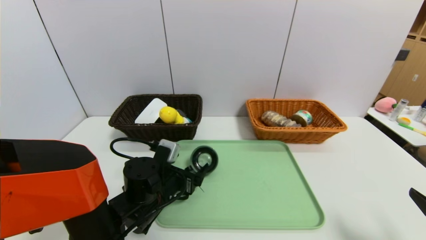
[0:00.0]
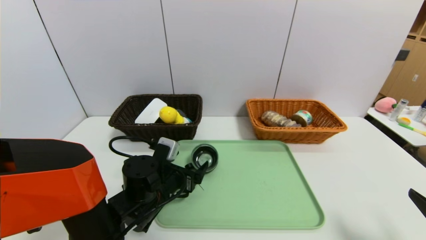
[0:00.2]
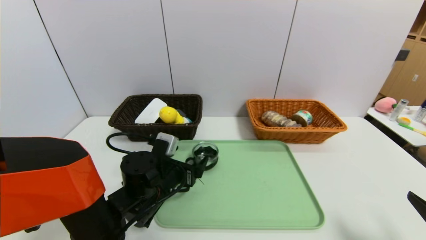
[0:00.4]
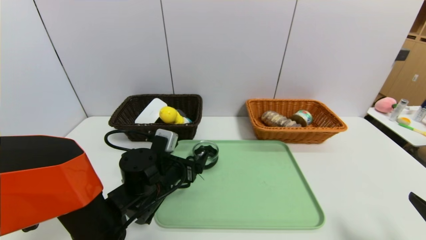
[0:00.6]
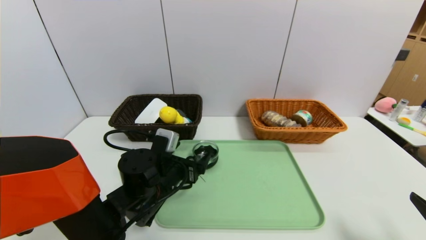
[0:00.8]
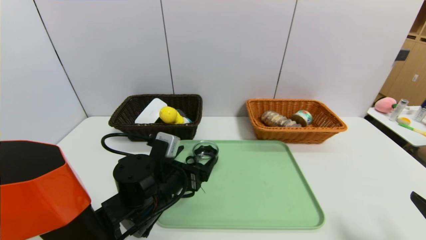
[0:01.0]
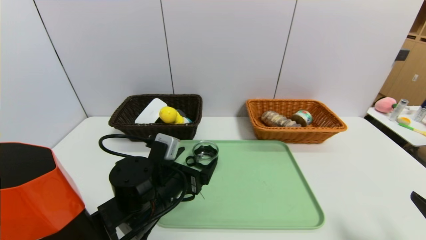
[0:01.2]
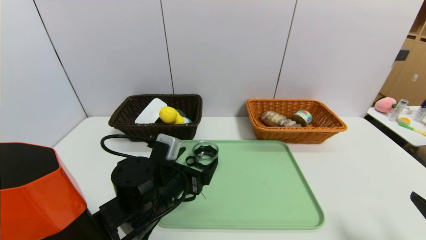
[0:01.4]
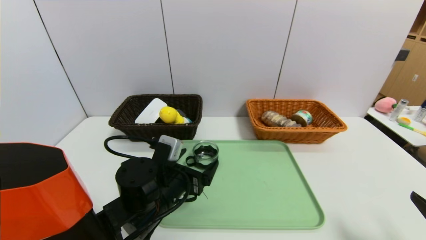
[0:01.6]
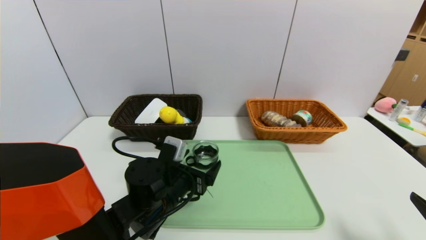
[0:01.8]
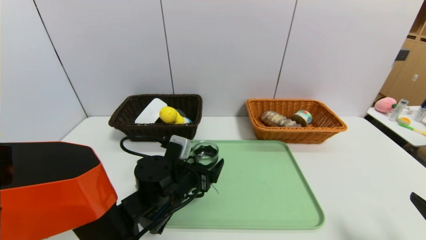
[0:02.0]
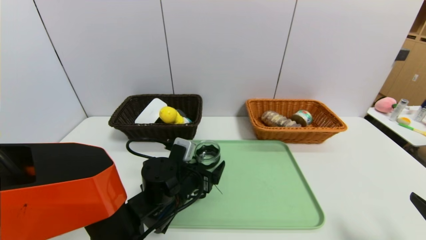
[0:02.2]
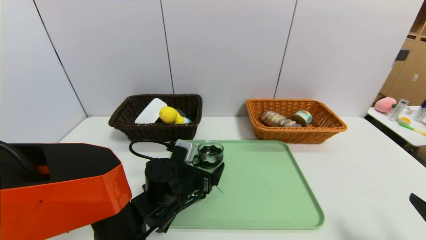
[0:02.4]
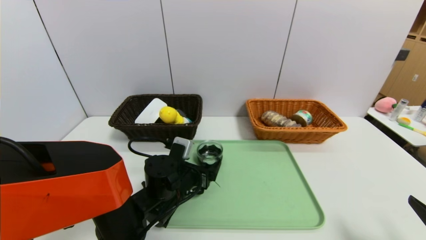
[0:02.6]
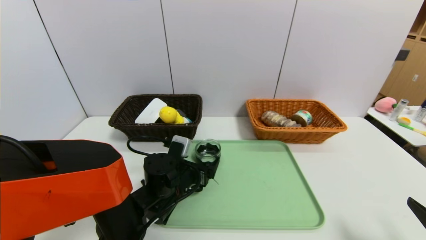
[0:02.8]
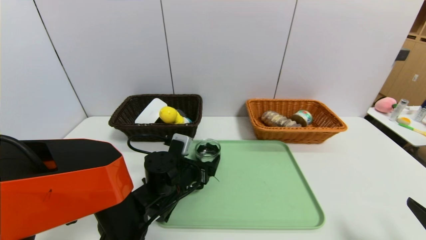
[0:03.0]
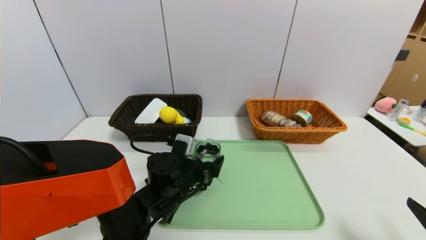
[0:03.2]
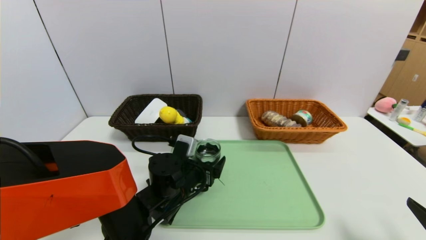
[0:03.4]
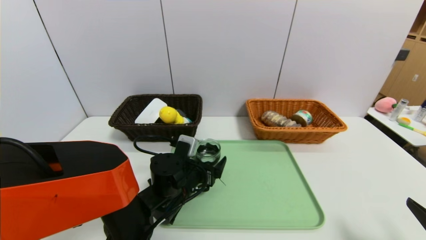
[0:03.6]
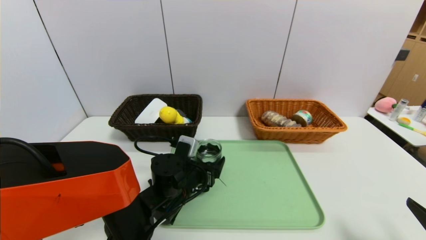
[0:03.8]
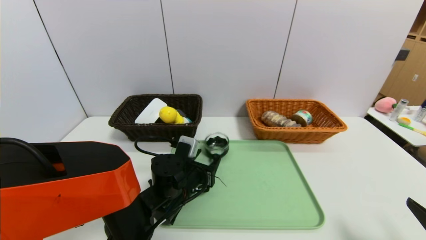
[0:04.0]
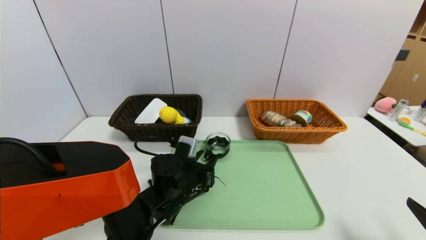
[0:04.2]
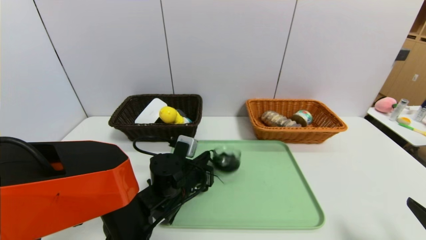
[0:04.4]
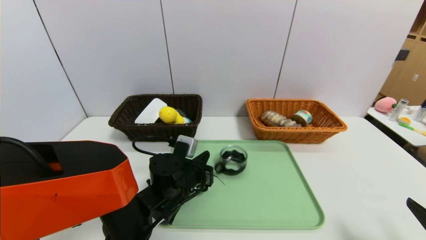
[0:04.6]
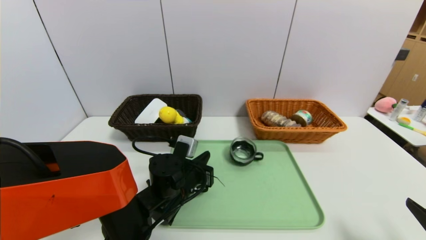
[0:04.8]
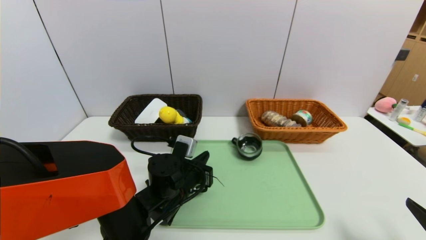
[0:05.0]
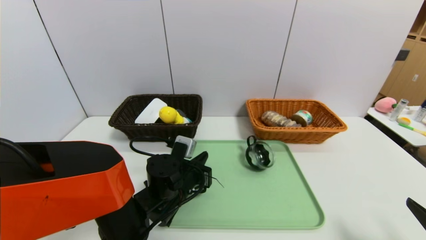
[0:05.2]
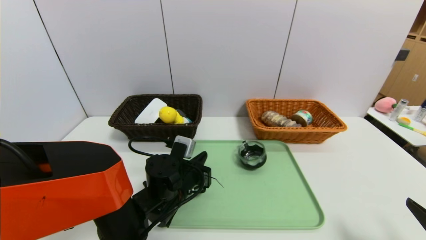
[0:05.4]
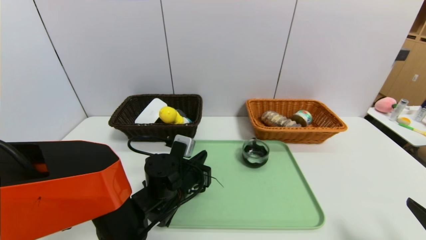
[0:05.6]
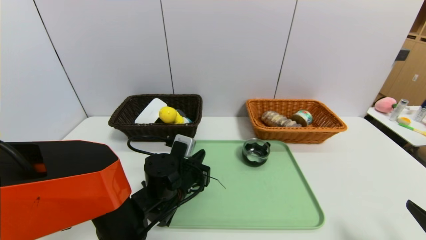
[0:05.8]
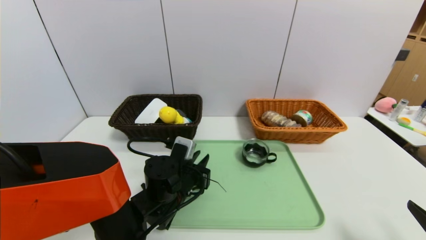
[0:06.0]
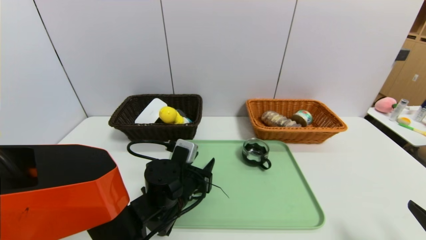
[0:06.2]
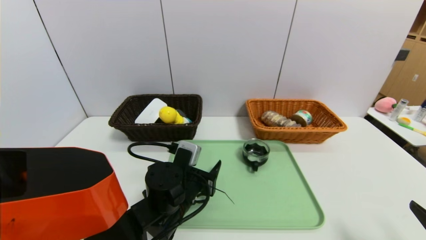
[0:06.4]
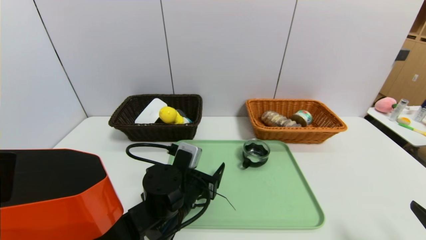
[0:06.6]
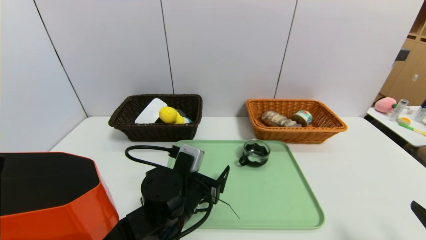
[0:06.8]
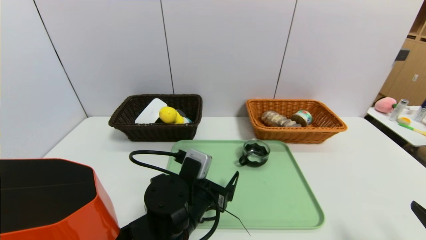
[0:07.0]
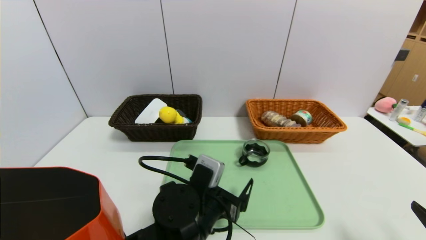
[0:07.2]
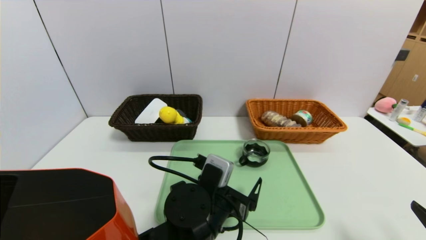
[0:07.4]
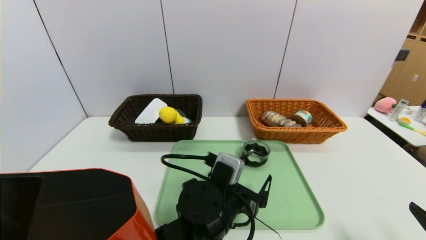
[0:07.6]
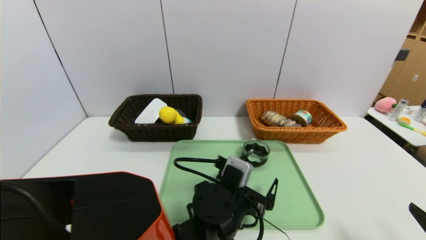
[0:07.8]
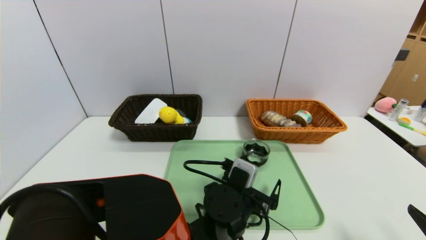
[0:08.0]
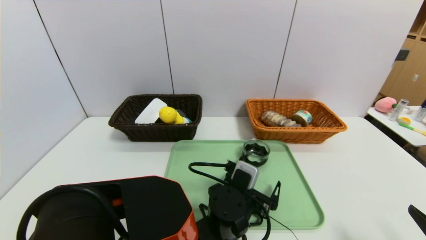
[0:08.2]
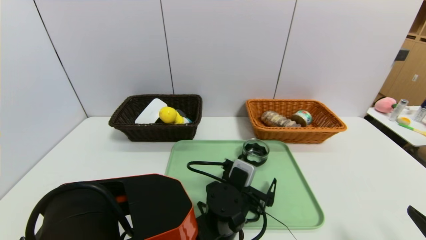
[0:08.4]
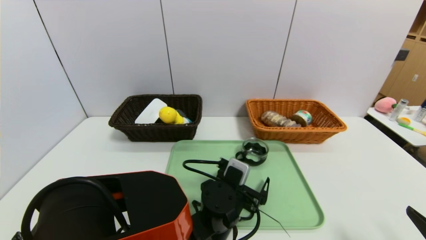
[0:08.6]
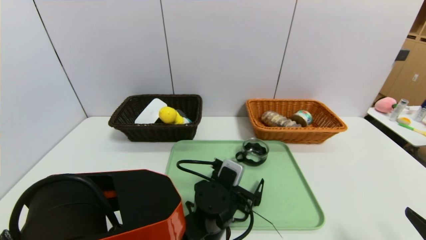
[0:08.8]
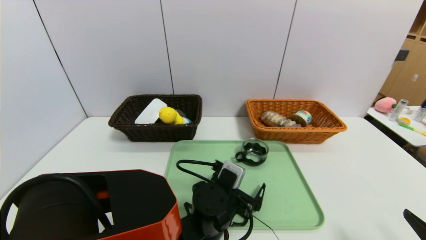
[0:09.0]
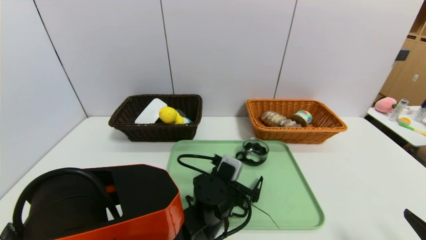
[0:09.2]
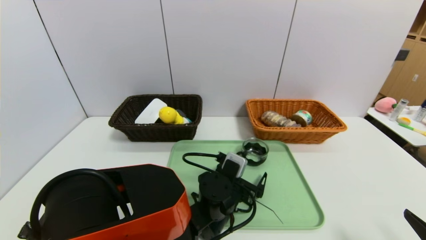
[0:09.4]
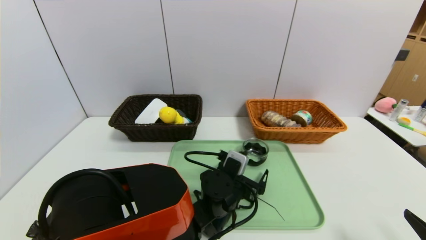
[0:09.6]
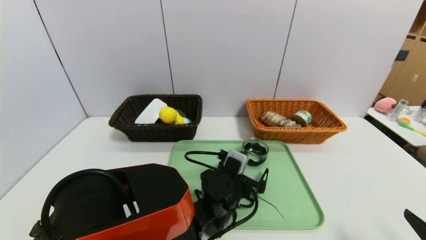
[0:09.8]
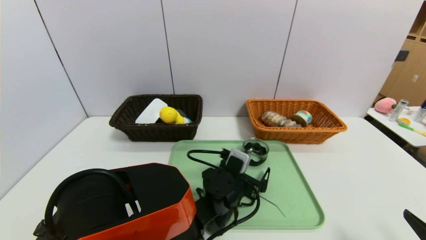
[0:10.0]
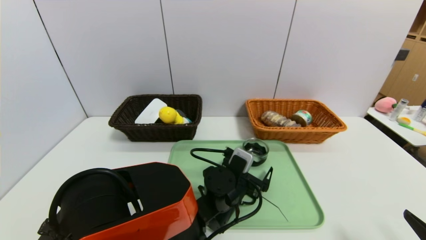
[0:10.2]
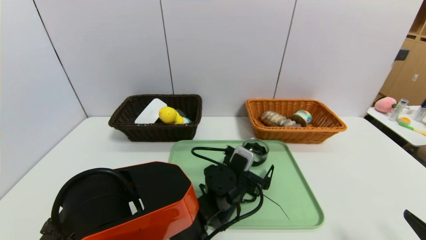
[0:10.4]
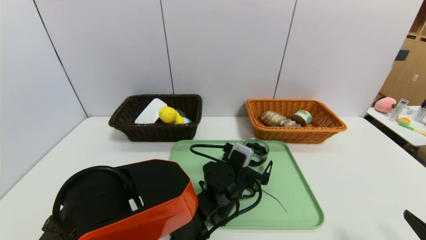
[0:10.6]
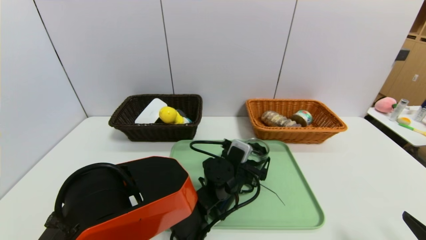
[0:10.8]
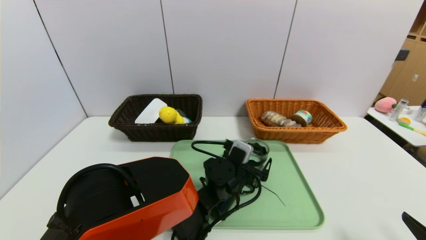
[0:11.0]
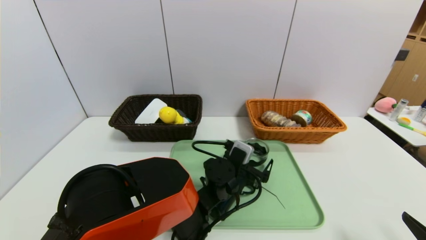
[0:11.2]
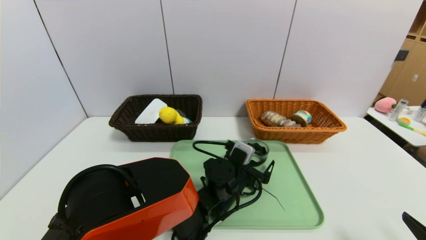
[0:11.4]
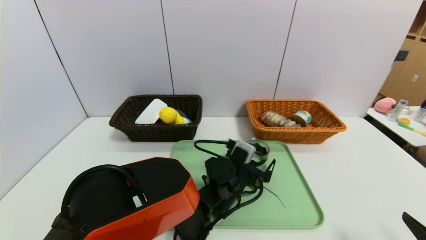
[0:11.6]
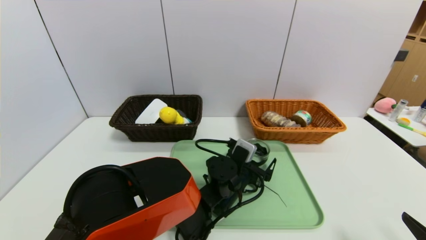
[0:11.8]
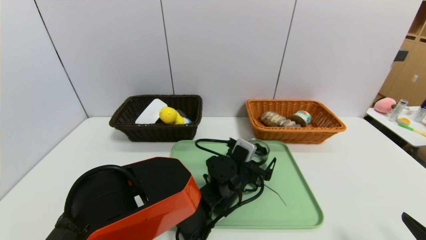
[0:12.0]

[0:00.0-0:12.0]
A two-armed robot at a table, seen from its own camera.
Task of the whole recording: place the food in the right basket with the right gripper, and place the non food items in the left basket with the left gripper.
0:00.0 to 0:01.6: The grippers stay close to where they were, moving slightly.
0:01.6 to 0:03.0: The left gripper changes place by approximately 5 cm.
0:03.0 to 0:04.4: The left gripper closes up.
0:04.4 to 0:06.0: The grippers stay close to where they were, moving slightly.
0:06.0 to 0:07.6: The left gripper travels to the right and backward by some 10 cm, and opens up.
0:07.6 to 0:09.0: The left gripper moves downward, roughly 5 cm.
0:09.0 to 0:10.4: The left gripper ends up about 5 cm from where it was.
0:10.4 to 0:12.0: The grippers stay close to where they were, moving slightly.

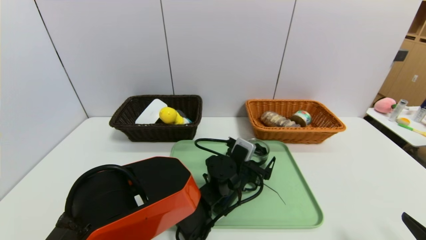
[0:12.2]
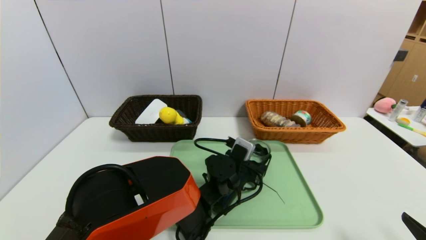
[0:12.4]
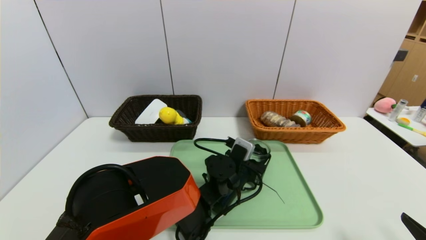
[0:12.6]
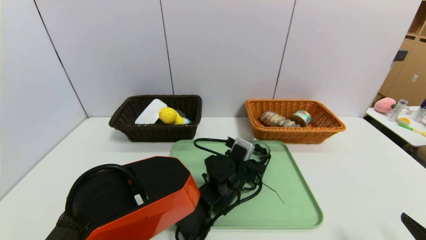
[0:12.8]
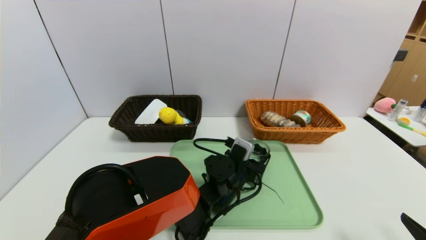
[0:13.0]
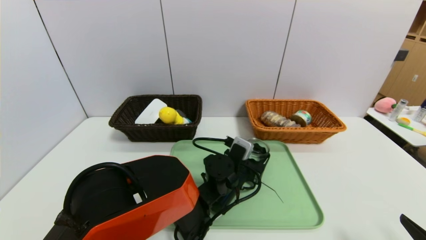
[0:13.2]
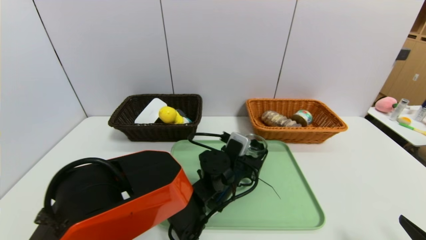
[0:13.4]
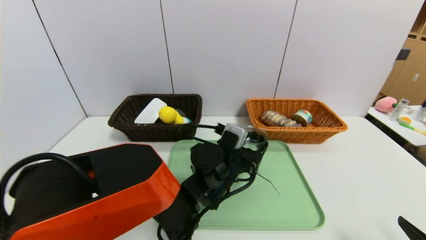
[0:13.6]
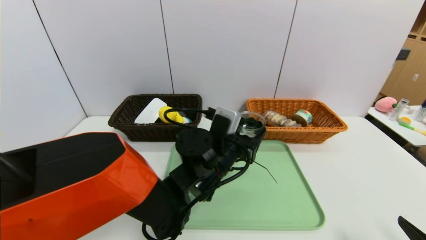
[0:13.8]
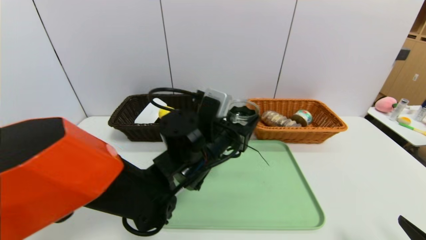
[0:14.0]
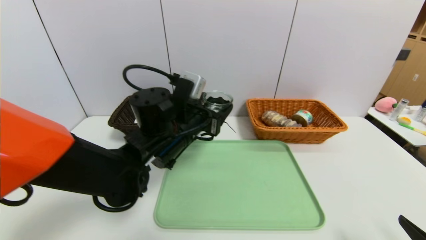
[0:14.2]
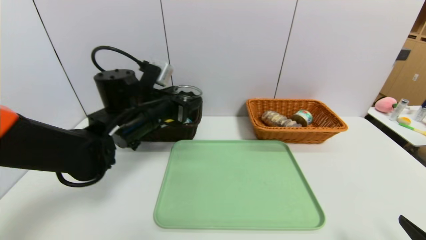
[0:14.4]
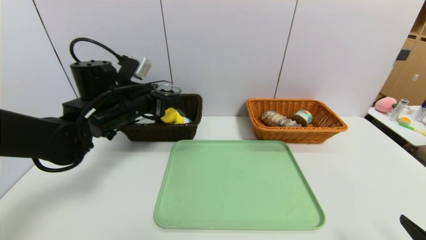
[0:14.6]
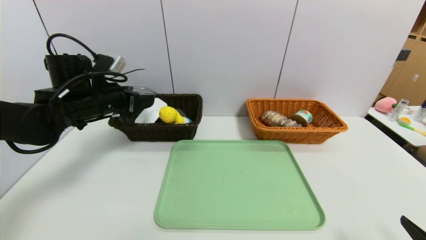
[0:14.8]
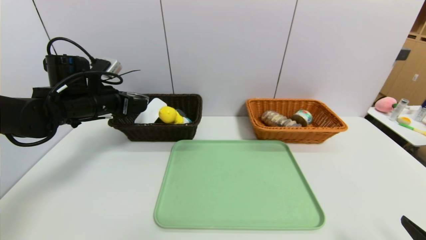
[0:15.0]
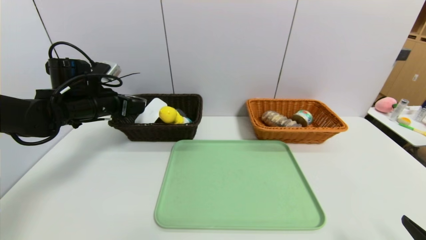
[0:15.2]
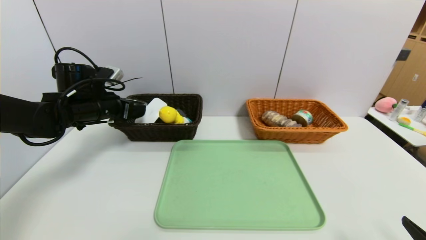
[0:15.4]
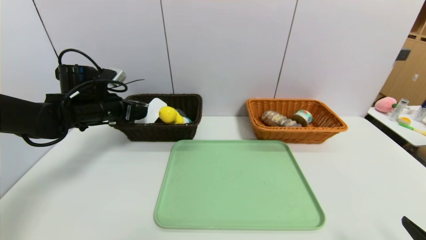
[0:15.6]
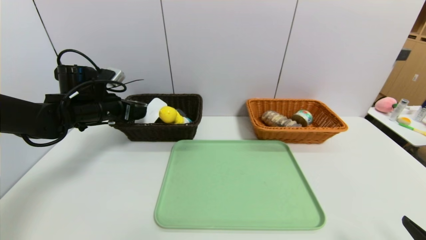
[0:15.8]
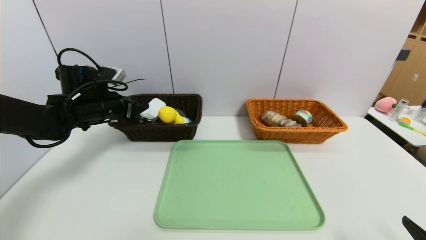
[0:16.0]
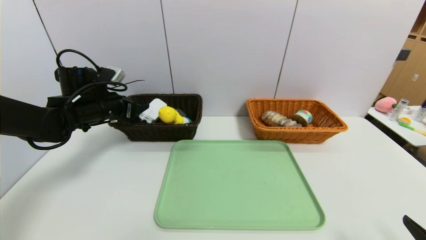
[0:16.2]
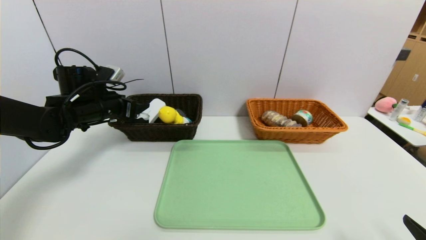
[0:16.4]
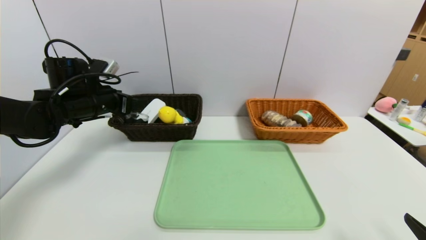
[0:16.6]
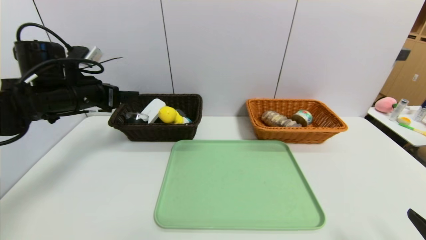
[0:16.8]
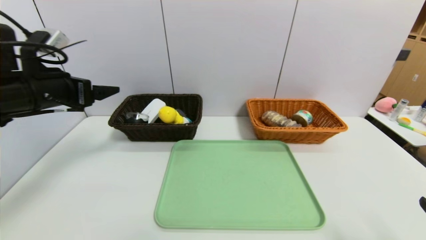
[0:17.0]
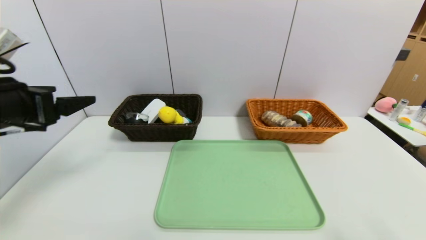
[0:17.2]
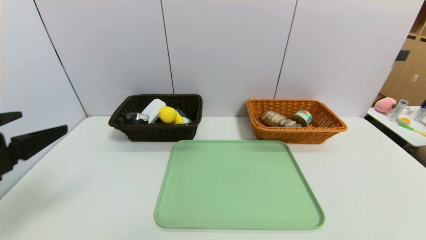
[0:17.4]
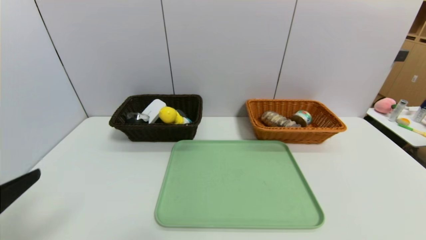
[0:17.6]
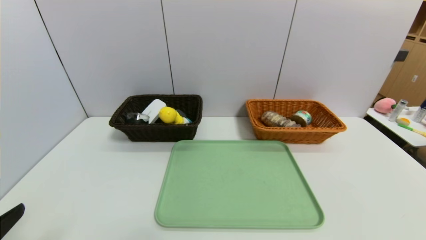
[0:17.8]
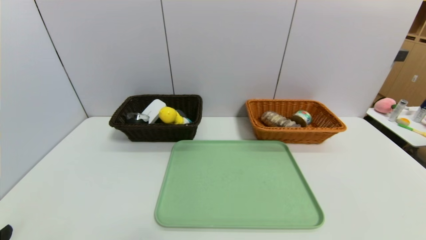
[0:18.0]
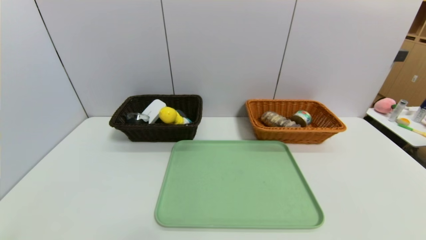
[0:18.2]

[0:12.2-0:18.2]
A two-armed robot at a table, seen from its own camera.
Task of the whole recording: place the food in the right basket with the right gripper, and place the non food items in the left basket with the left gripper.
Step, 0:12.2 to 0:16.4: Grasp the blue cup and put it in the left basket.
0:12.2 to 0:13.8: The left gripper moves upward, roughly 10 cm.
0:13.8 to 0:15.2: The left gripper goes some 25 cm to the left.
0:15.2 to 0:16.6: The grippers stay close to where they were, moving slightly.
0:16.6 to 0:18.2: The left gripper heads backward, covering about 40 cm; the right gripper shifts roughly 10 cm backward.
